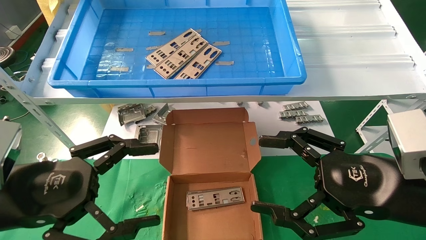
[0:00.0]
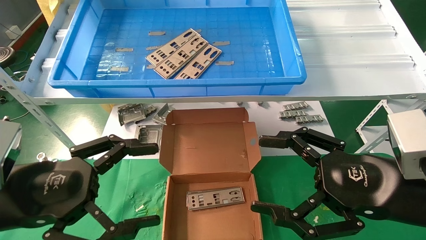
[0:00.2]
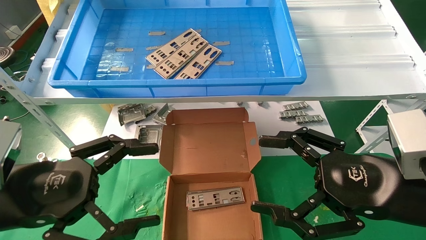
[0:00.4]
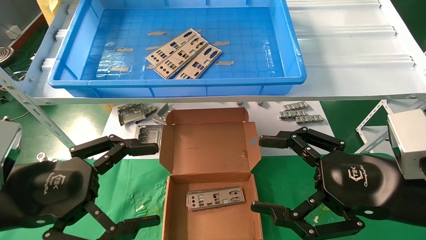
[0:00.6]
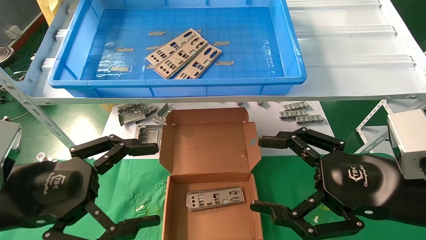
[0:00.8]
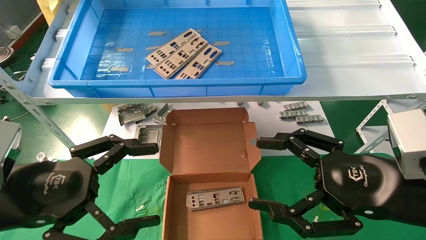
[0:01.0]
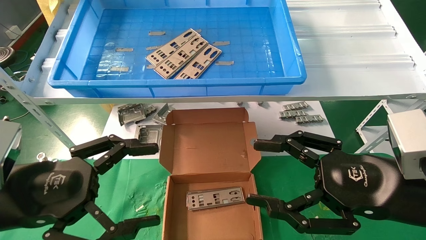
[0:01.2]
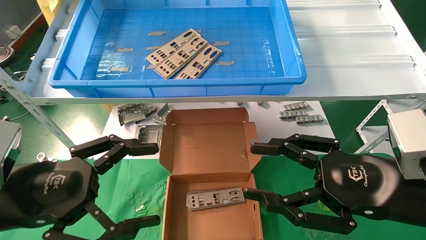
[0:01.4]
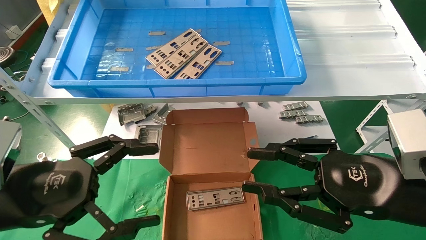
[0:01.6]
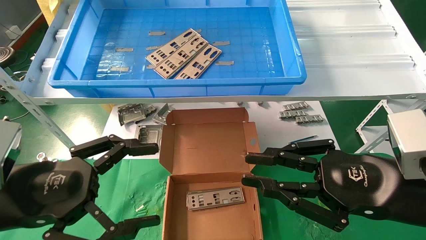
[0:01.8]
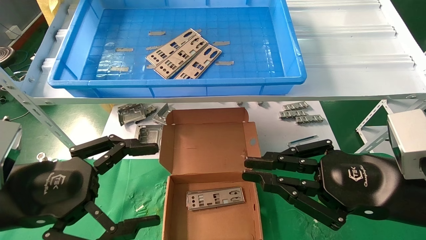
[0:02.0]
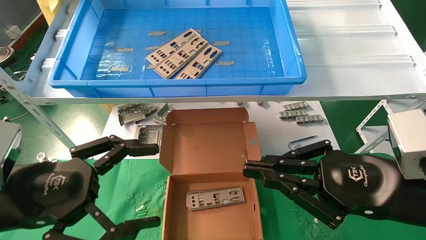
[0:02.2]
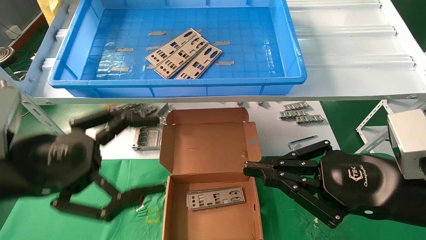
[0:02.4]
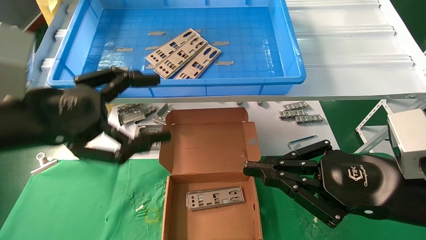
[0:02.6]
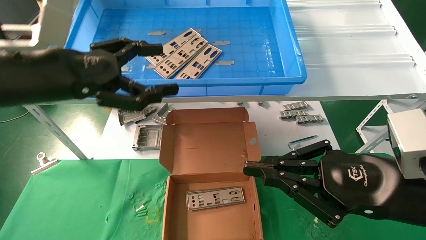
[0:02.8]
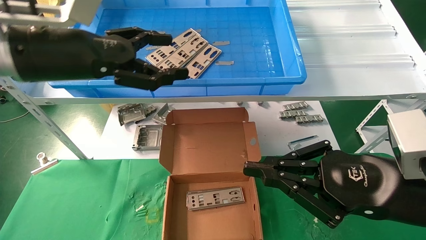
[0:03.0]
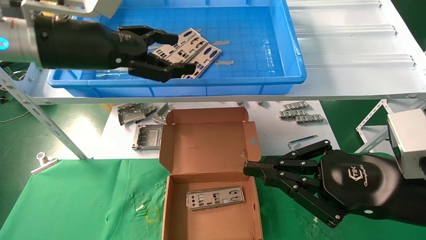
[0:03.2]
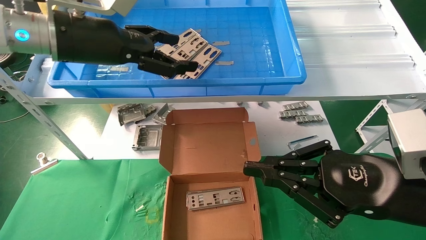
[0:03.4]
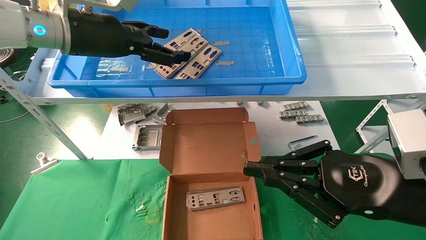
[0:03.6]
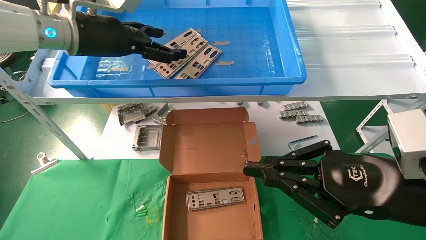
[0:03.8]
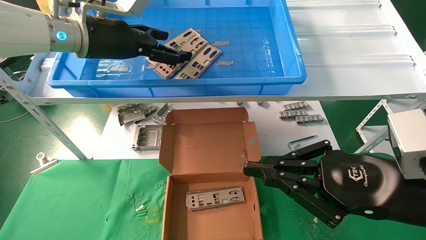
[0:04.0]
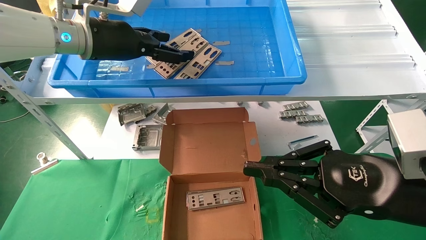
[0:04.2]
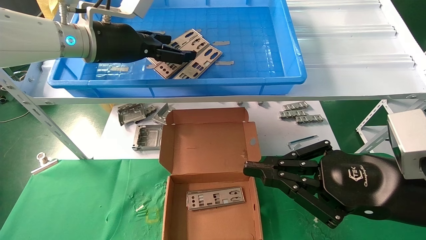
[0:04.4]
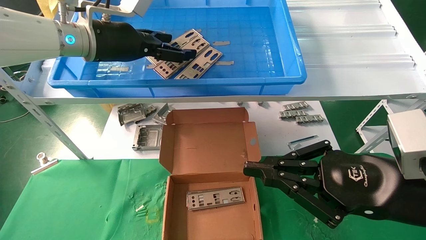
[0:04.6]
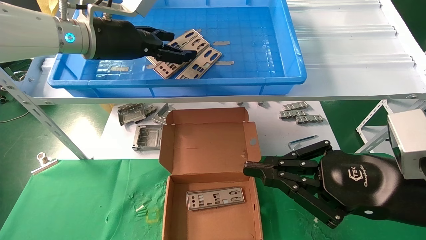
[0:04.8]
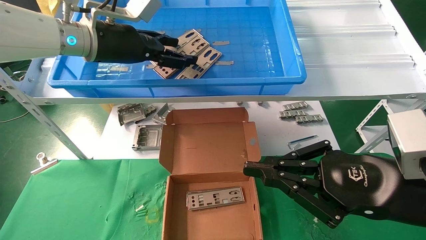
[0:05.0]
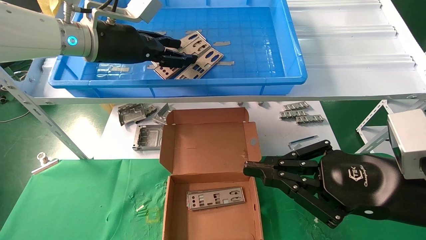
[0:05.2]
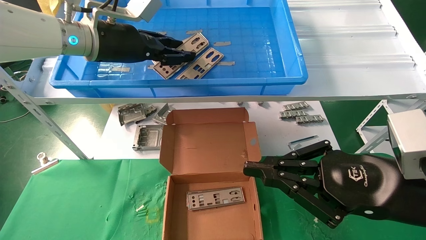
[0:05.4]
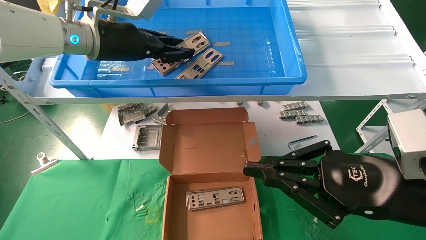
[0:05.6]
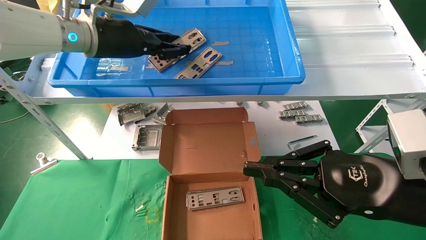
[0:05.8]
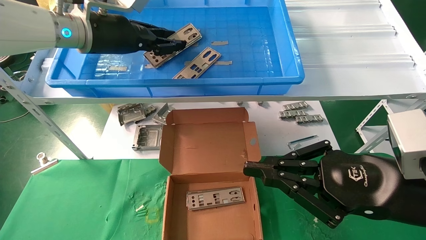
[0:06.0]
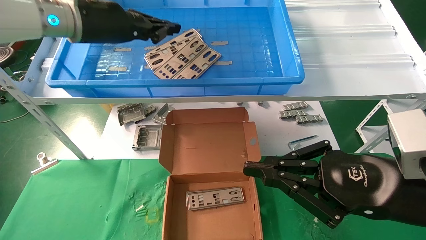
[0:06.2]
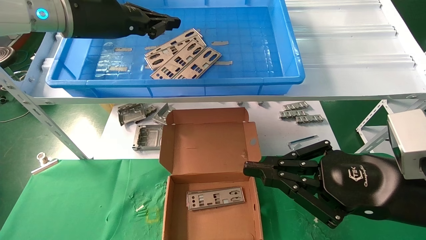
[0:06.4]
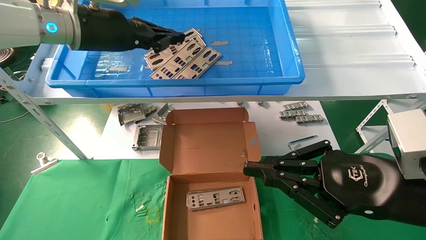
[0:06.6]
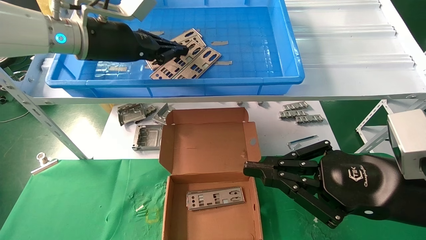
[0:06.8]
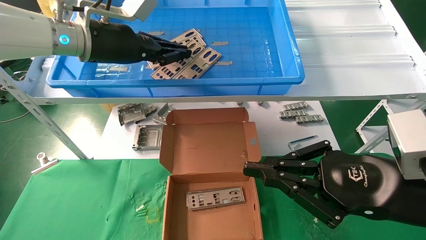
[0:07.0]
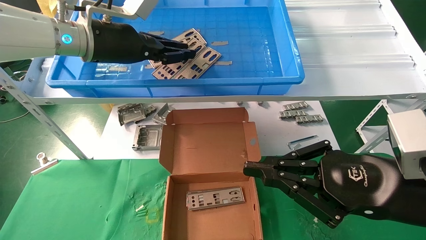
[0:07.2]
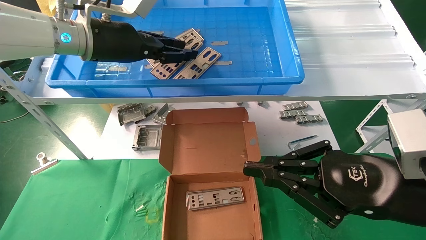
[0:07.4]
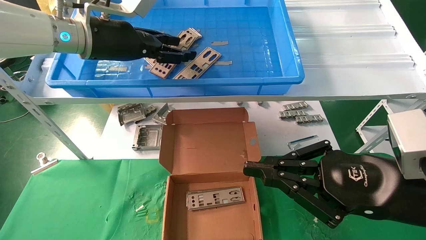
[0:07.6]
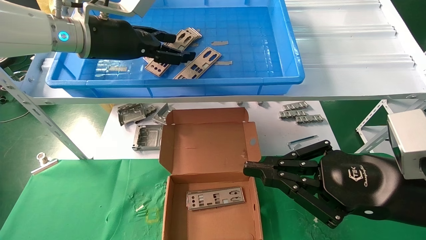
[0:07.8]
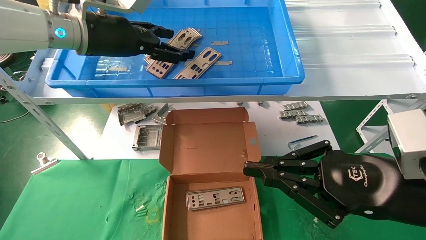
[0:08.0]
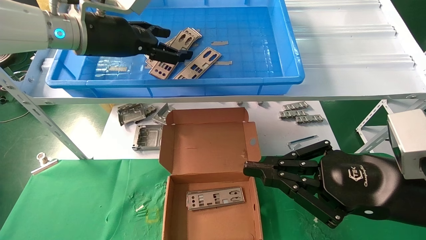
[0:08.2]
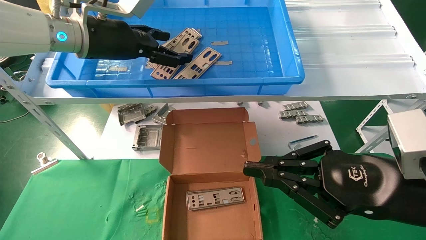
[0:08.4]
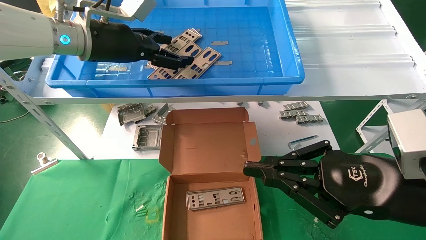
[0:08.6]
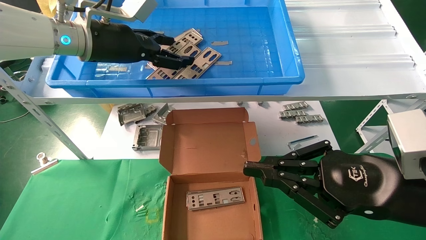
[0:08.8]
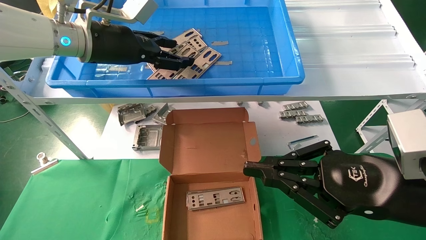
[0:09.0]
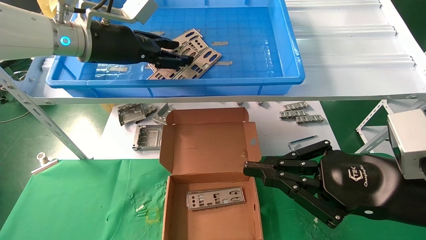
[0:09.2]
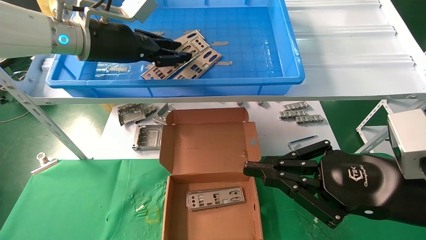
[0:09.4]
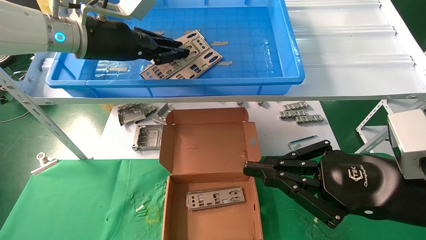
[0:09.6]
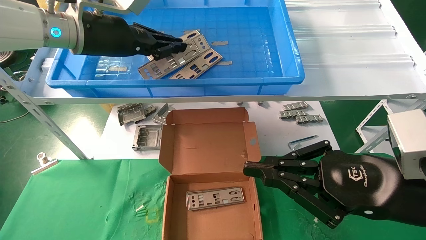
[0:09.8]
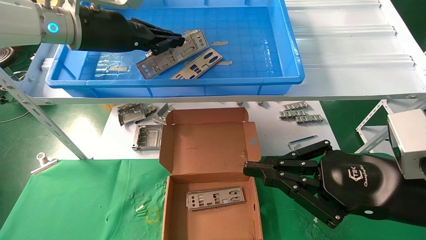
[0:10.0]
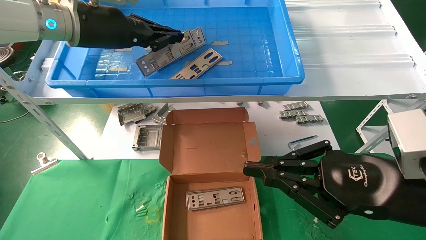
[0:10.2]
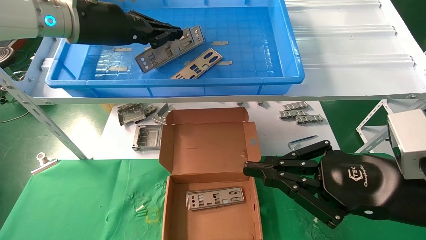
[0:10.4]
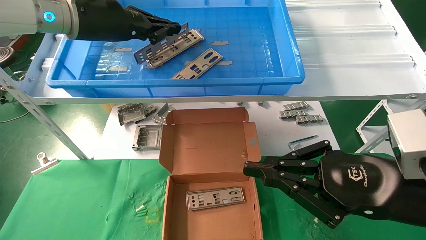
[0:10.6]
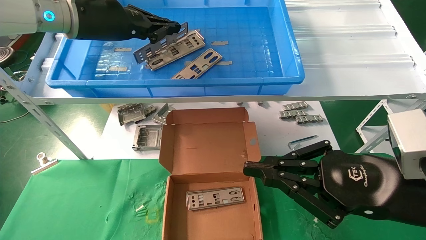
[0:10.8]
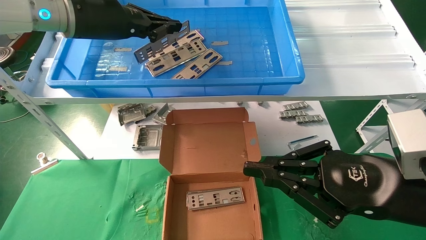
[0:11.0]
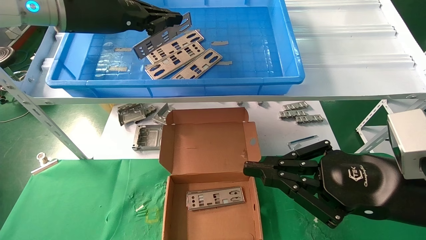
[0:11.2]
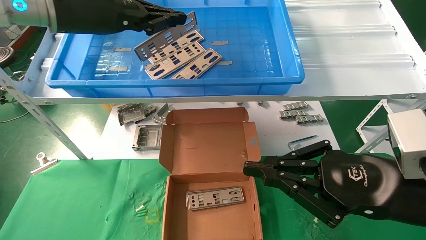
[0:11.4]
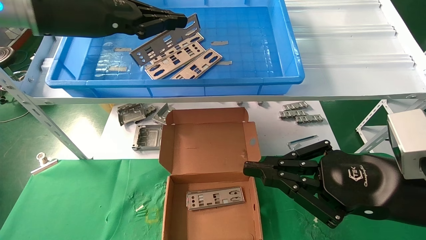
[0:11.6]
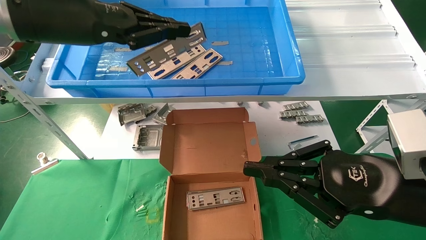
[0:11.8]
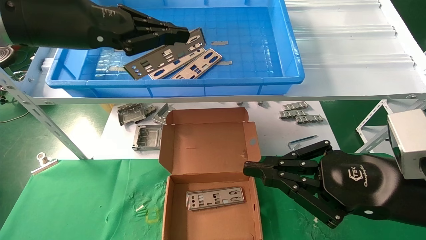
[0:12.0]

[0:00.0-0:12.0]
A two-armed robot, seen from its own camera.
Task of the whole recording: pick up the parts on the tray and put them in the cardboard box.
Step, 0:02.8 to 0:10.2: Pick up the IO bracket from the container box.
0:00.0 to 0:01.6: The right gripper closes up.
0:01.6 to 0:03.0: The right gripper closes its fingers, while the left gripper travels upward and forward by roughly 20 cm.
0:03.0 to 0:04.4: The left gripper is displaced forward by roughly 10 cm.
0:04.4 to 0:06.0: The left gripper closes its fingers.
0:06.0 to 0:07.6: The grippers stay close to where they were, moving slightly.
0:07.6 to 0:09.0: The left gripper opens its fingers.
0:09.0 to 0:10.4: The left gripper closes its fingers.
0:10.4 to 0:12.0: The left gripper heads backward, covering roughly 10 cm.

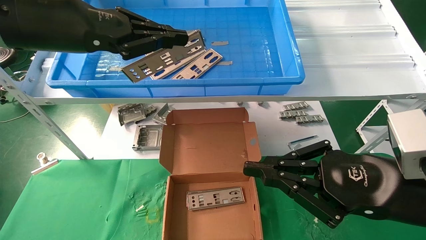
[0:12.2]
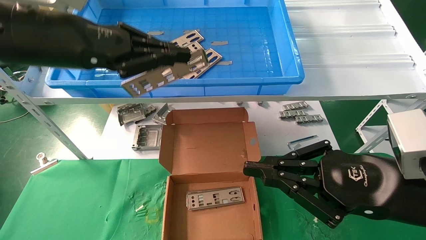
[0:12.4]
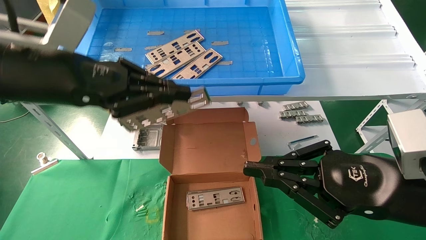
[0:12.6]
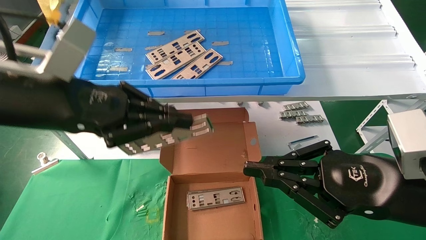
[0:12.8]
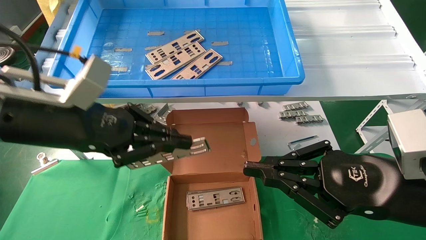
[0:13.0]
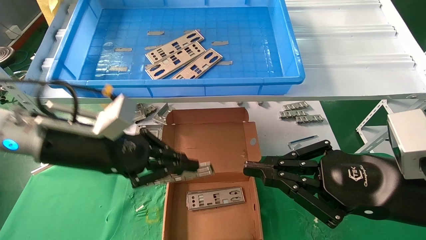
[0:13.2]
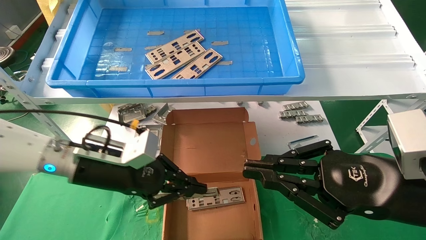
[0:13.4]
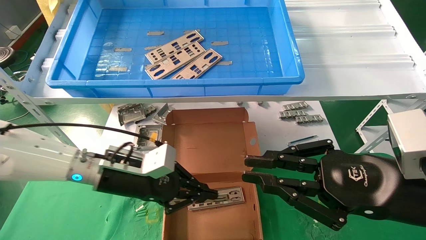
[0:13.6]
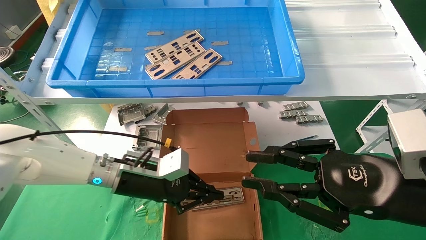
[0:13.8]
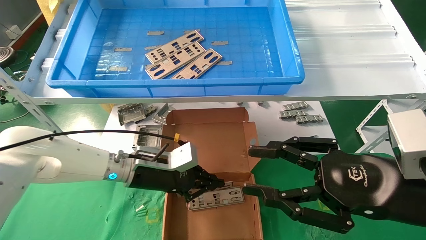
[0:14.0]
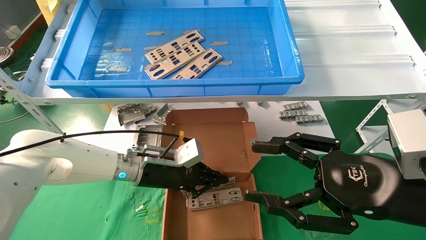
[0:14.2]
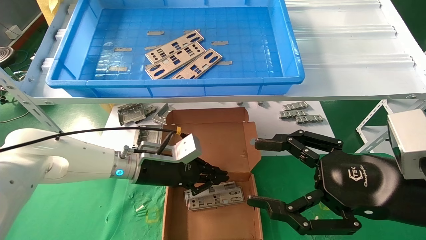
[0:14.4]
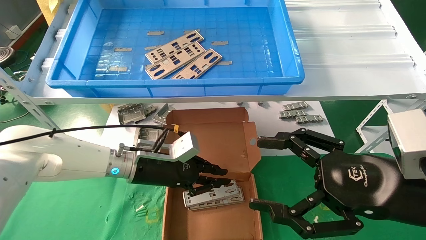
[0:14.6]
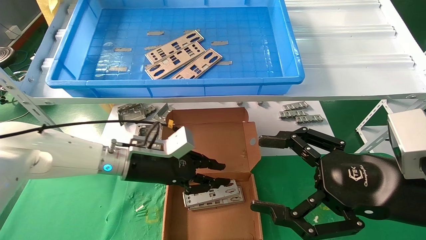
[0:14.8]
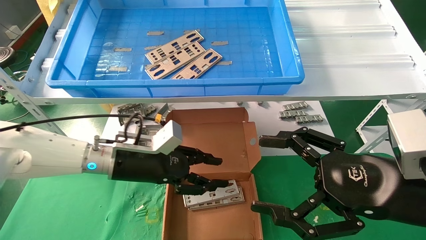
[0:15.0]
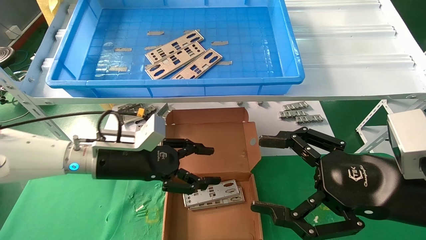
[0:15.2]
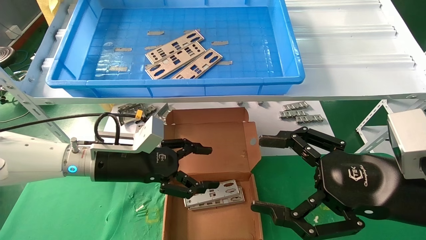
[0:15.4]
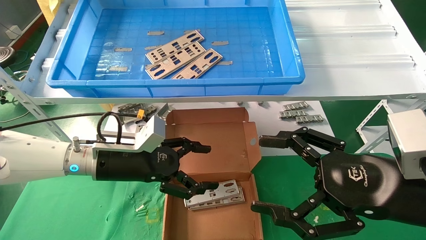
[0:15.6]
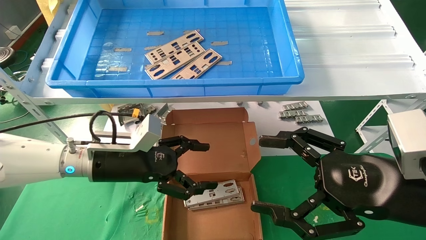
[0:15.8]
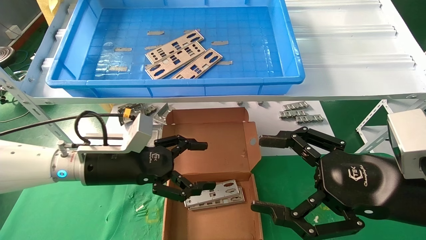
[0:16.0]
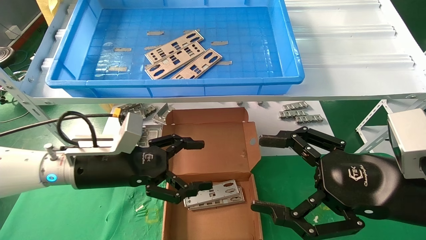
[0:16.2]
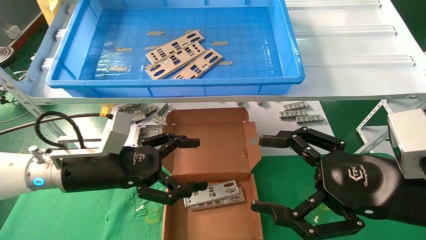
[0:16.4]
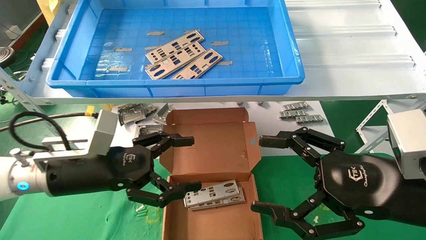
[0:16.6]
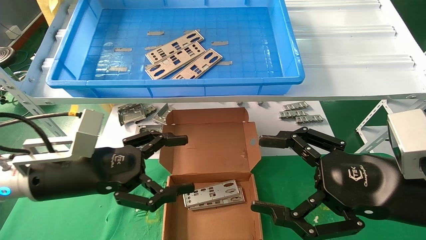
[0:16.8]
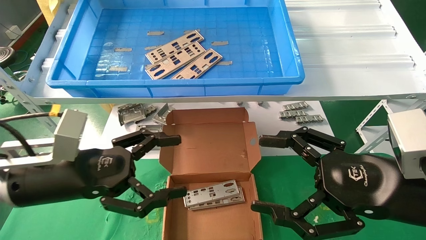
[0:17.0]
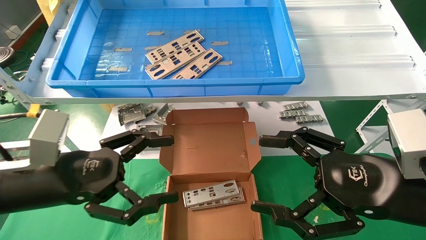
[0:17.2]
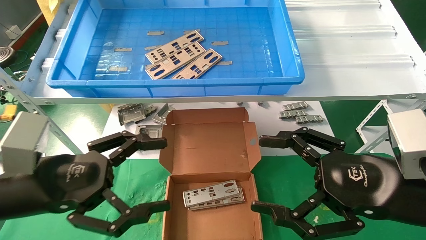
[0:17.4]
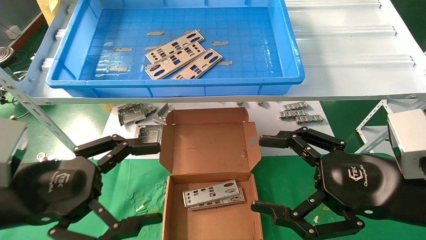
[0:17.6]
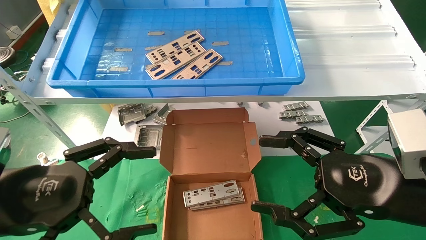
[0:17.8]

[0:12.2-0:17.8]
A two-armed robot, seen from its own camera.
Task of the whole recording: pick up the parts on the tray and put them in the cardboard box.
Step, 0:12.2 to 0:14.6: Place the IO bracket into the ingredient slot.
0:12.2 to 0:13.6: The left gripper heads downward, covering roughly 25 cm.
0:13.6 to 0:15.0: The left gripper opens its fingers. The right gripper opens its fingers.
0:15.0 to 0:16.4: The left gripper heads backward, covering some 5 cm, and opens its fingers.
0:16.4 to 0:17.8: The left gripper moves backward and to the left, approximately 15 cm.
